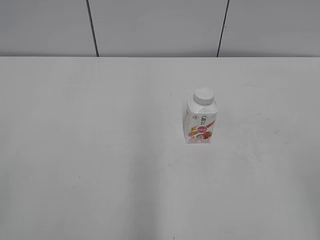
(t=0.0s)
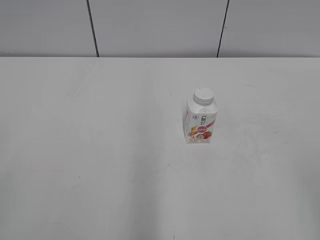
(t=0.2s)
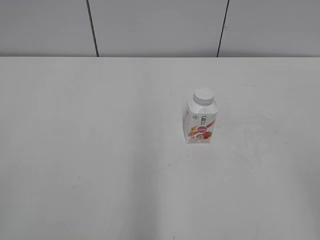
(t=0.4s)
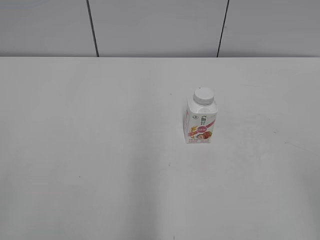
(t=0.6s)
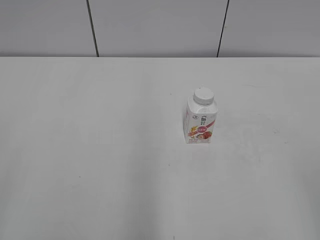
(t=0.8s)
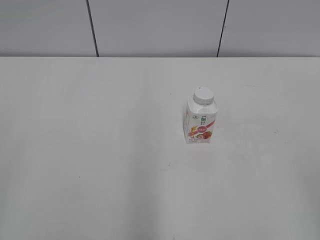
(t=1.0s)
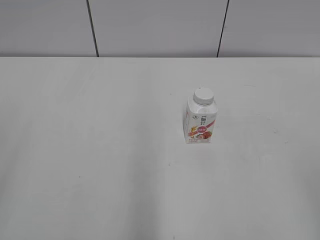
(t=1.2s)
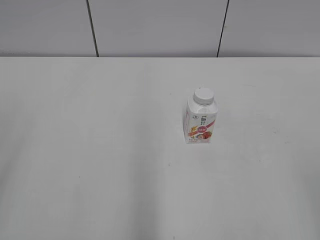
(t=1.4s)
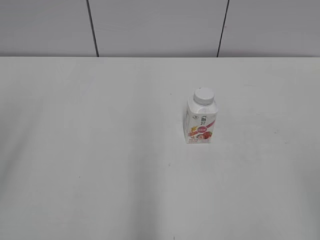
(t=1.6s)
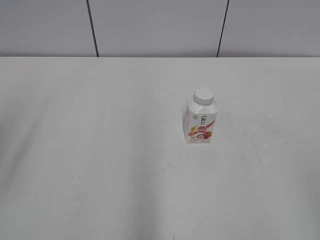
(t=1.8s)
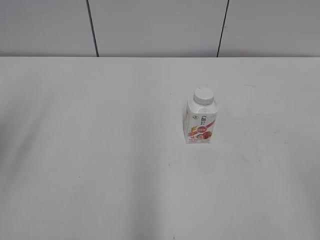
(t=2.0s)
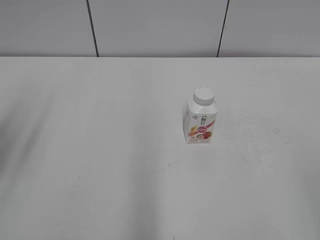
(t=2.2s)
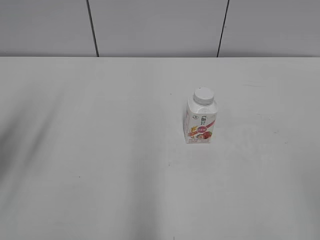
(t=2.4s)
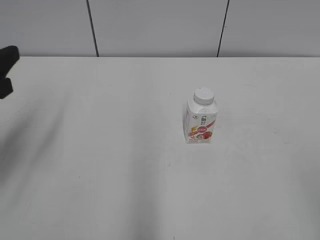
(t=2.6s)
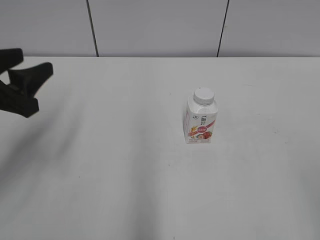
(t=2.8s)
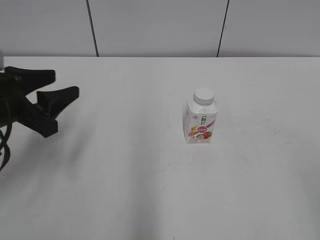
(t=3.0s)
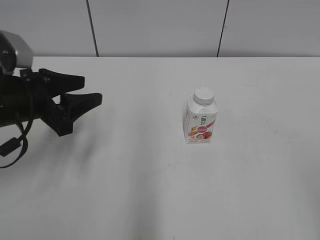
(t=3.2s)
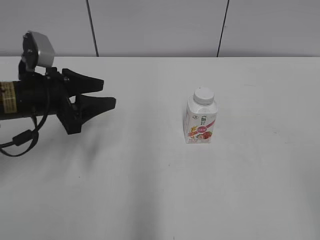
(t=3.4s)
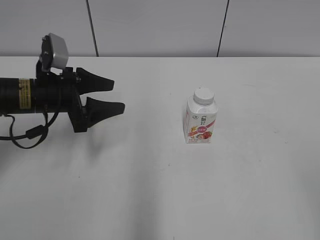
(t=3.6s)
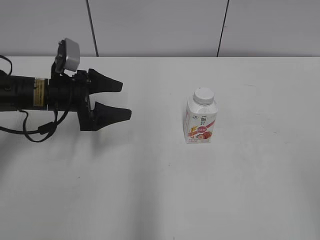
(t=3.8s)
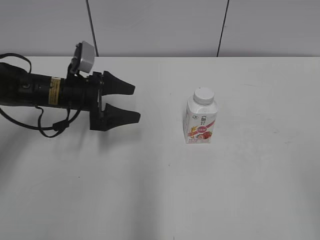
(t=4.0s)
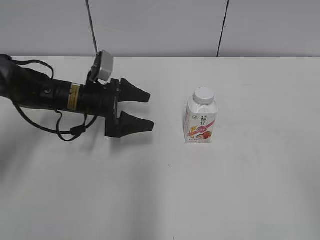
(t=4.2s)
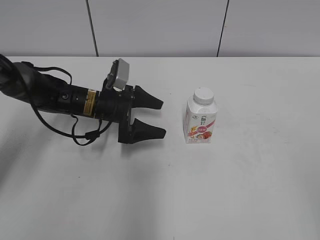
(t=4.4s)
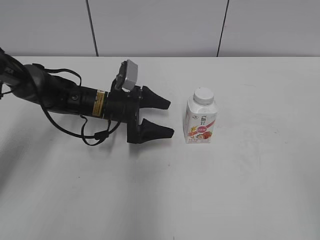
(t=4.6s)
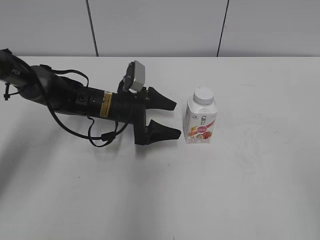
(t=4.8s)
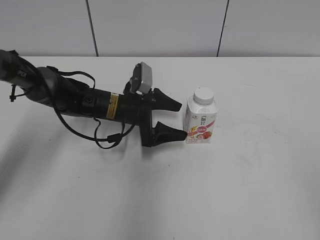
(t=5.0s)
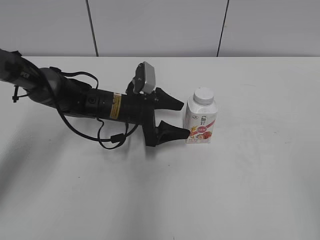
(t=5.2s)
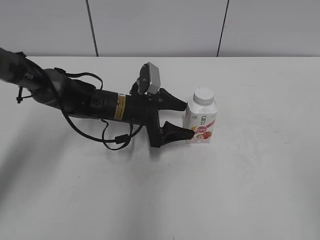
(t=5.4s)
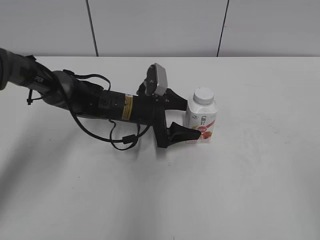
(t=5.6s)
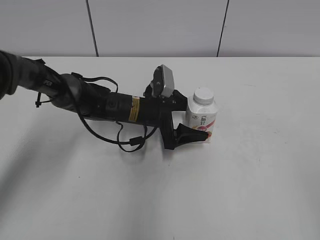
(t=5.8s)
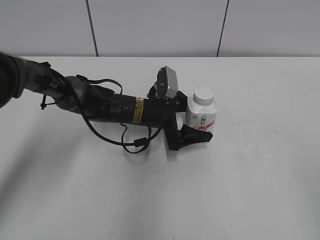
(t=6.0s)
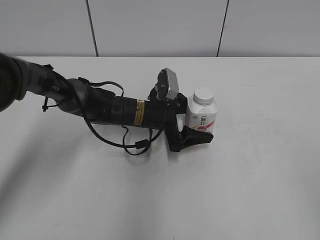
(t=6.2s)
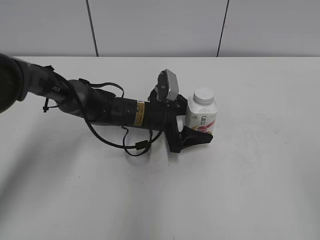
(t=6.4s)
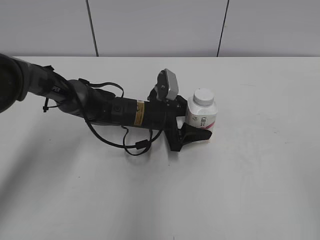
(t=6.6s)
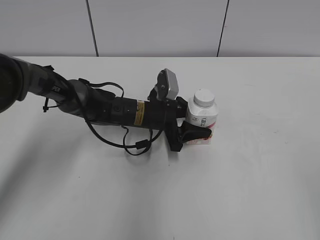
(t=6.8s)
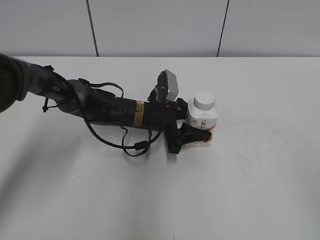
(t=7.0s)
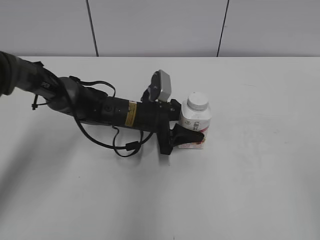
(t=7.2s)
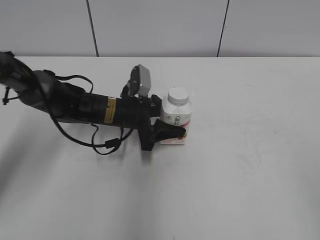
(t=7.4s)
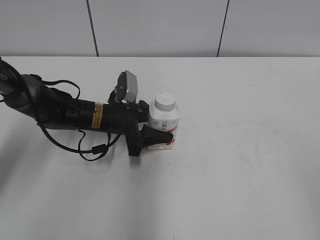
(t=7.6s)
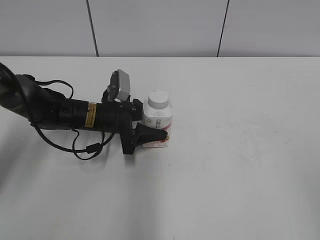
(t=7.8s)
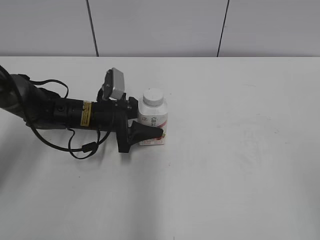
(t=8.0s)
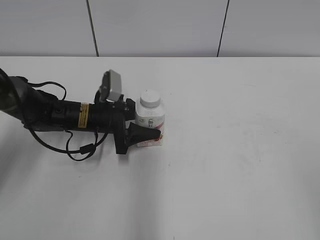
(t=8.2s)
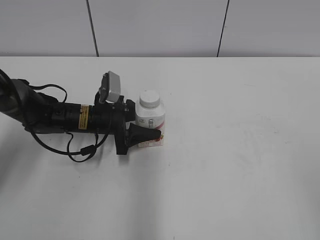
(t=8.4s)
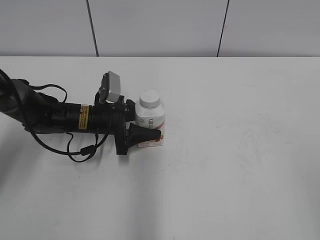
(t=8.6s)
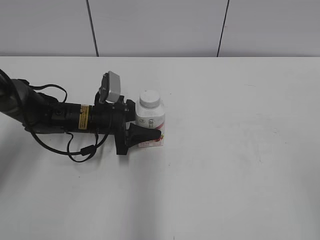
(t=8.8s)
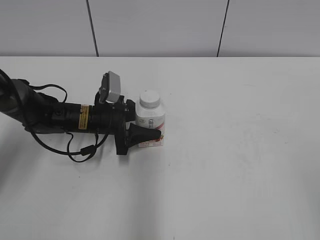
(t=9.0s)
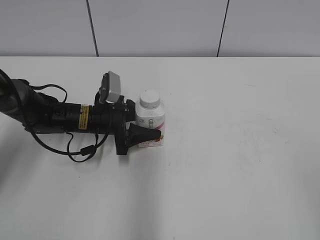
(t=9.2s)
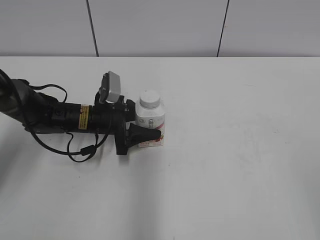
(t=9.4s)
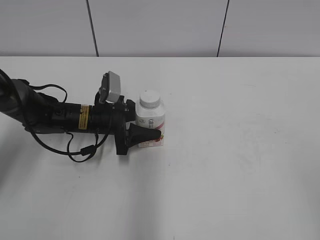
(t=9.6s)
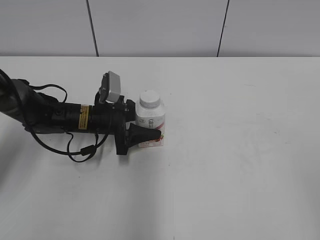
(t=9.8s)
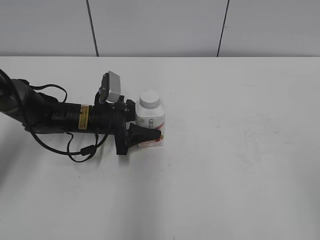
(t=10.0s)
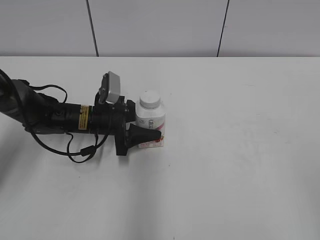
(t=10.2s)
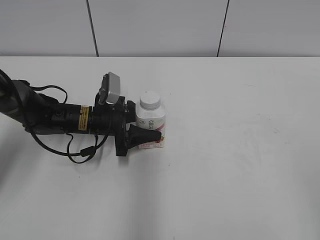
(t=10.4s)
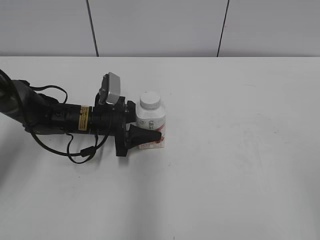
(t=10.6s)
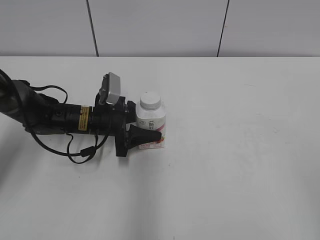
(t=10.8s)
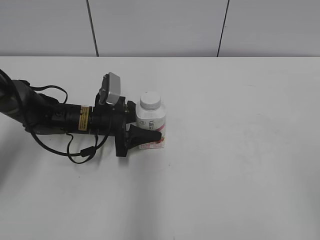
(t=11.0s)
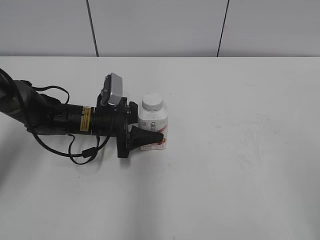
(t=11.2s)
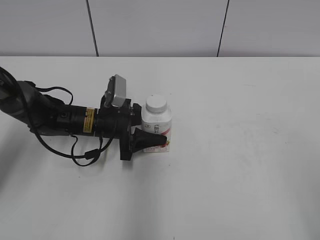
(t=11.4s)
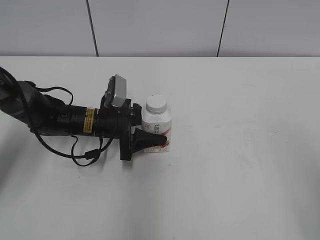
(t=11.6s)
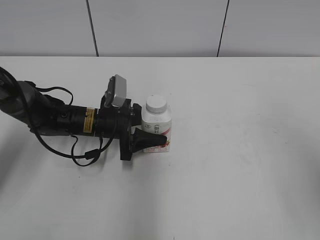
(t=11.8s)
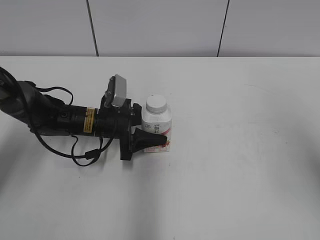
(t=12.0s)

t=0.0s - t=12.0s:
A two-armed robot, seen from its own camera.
Step, t=0.0s - t=6.6s: Grab the Yili Changqing with the left hand.
t=1.6s - t=3.0s: The left gripper is displaced downward, forward and to the right by roughly 20 cm.
t=3.0s - t=4.4s: The left gripper moves forward, downward and to the right, about 20 cm, and opens up.
t=4.4s - t=6.0s: The left gripper goes about 10 cm to the right.
t=6.0s - t=7.6s: The left gripper heads to the left, covering approximately 5 cm, and closes.
t=7.6s - t=9.0s: The grippers move only a little.
t=9.0s - t=10.4s: Both grippers stay about where they are.
t=10.4s - t=12.0s: The right gripper heads forward and upward, covering roughly 20 cm.

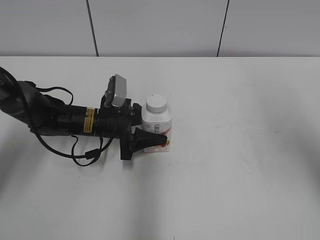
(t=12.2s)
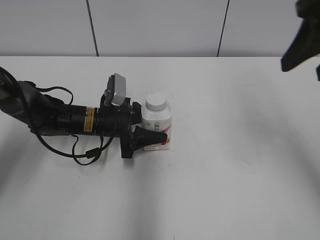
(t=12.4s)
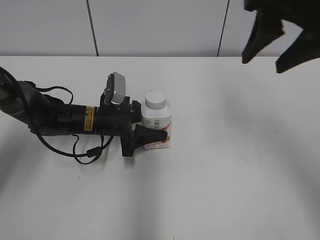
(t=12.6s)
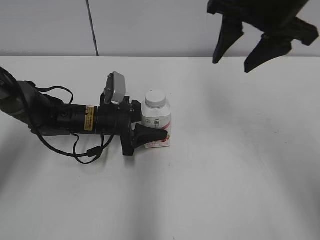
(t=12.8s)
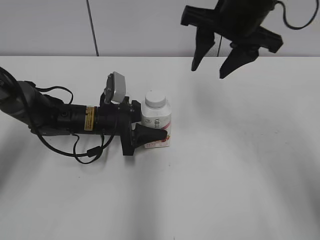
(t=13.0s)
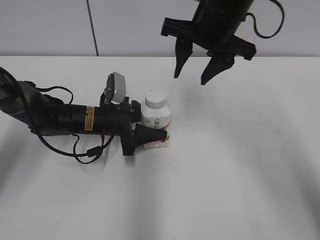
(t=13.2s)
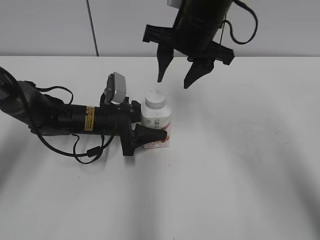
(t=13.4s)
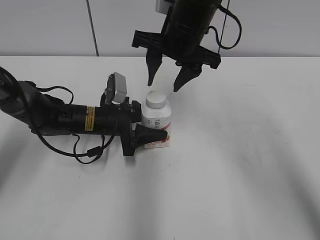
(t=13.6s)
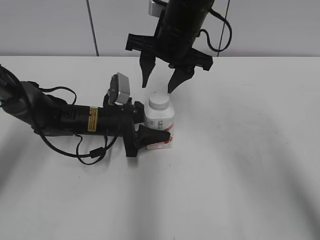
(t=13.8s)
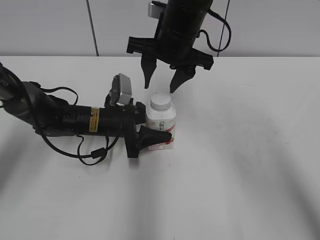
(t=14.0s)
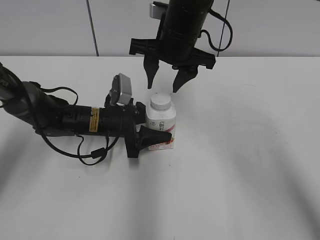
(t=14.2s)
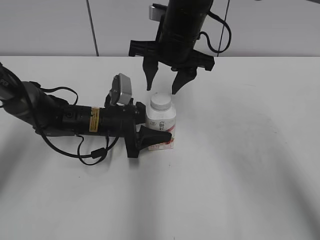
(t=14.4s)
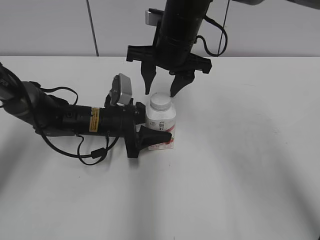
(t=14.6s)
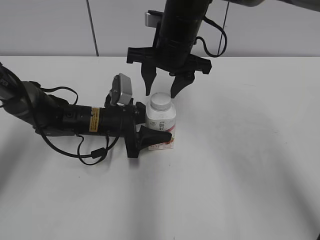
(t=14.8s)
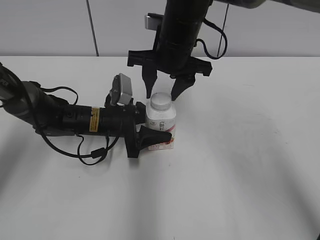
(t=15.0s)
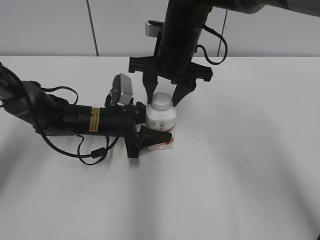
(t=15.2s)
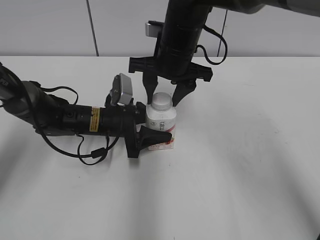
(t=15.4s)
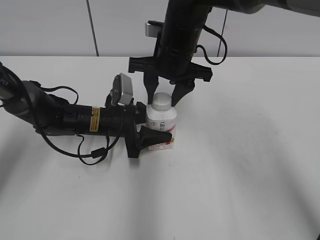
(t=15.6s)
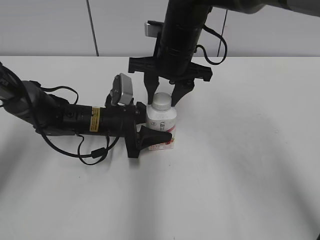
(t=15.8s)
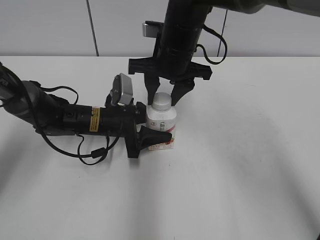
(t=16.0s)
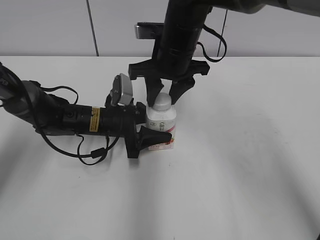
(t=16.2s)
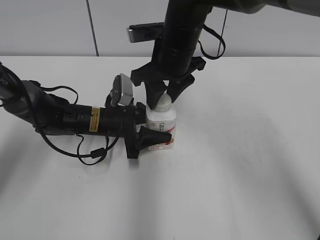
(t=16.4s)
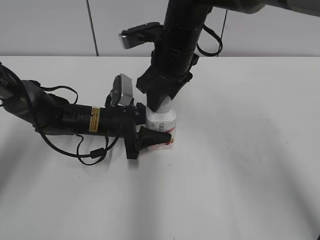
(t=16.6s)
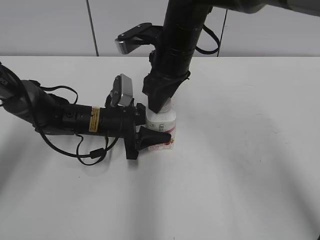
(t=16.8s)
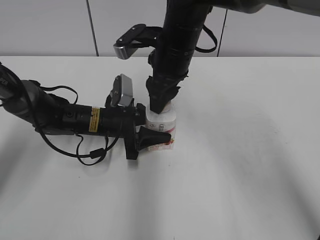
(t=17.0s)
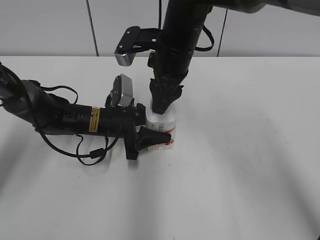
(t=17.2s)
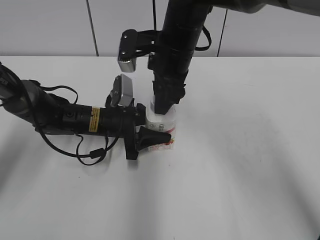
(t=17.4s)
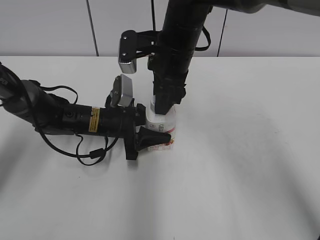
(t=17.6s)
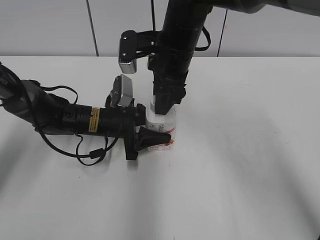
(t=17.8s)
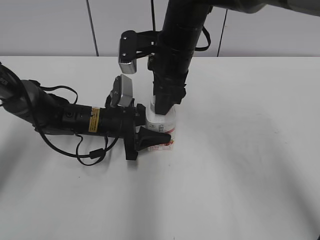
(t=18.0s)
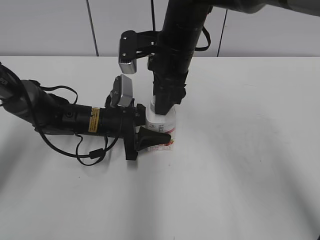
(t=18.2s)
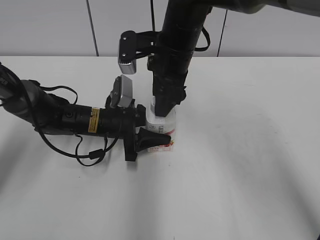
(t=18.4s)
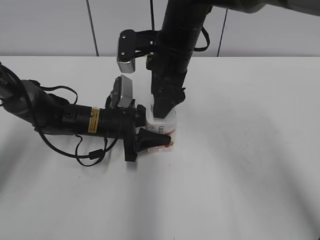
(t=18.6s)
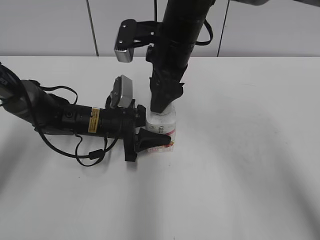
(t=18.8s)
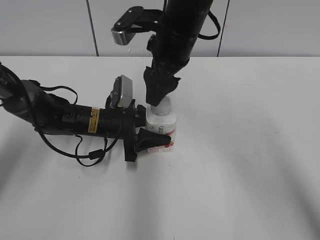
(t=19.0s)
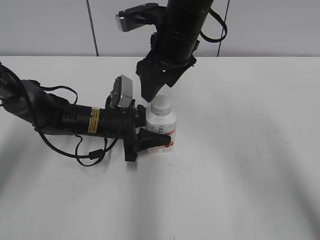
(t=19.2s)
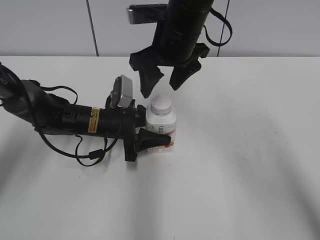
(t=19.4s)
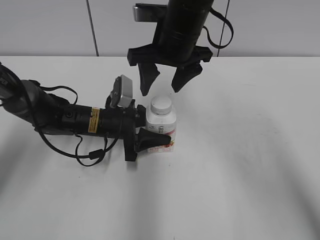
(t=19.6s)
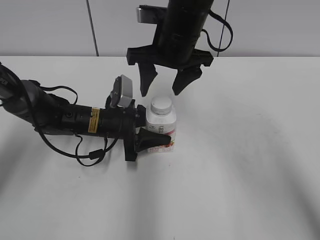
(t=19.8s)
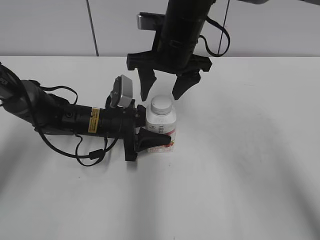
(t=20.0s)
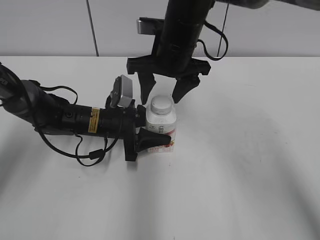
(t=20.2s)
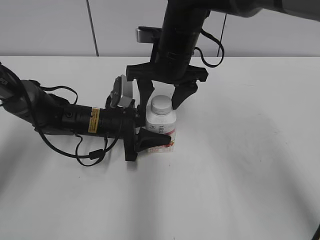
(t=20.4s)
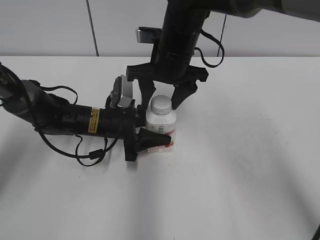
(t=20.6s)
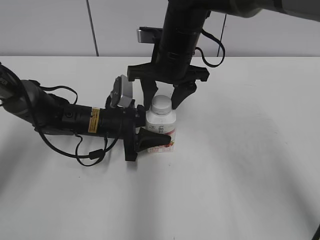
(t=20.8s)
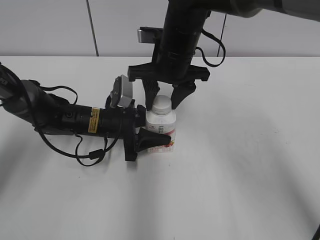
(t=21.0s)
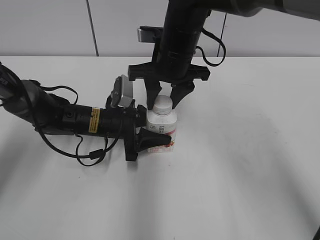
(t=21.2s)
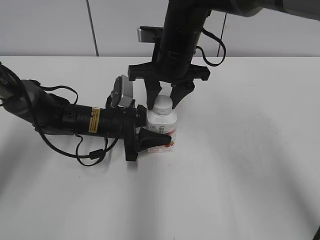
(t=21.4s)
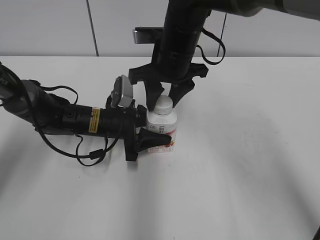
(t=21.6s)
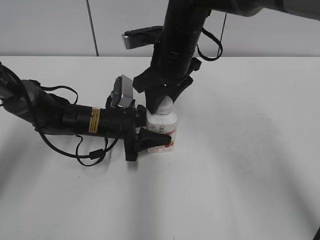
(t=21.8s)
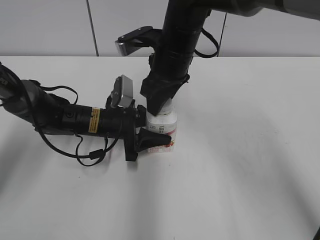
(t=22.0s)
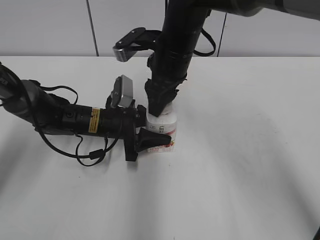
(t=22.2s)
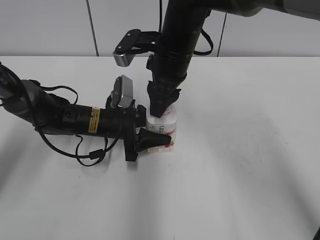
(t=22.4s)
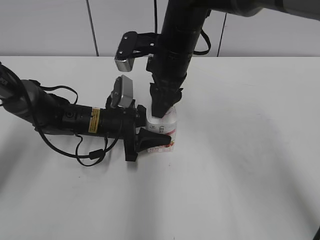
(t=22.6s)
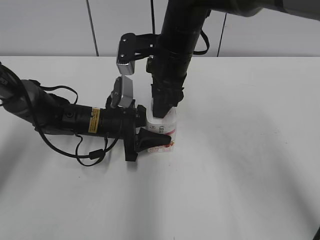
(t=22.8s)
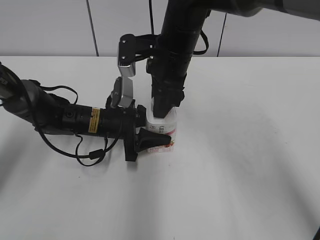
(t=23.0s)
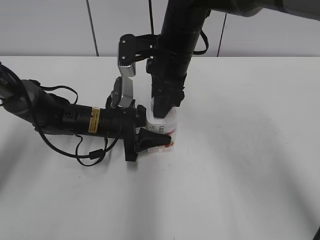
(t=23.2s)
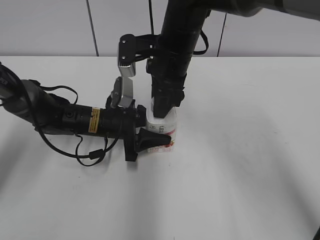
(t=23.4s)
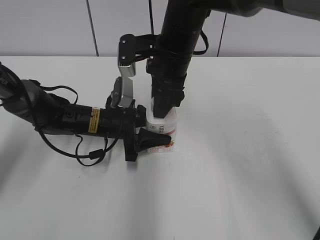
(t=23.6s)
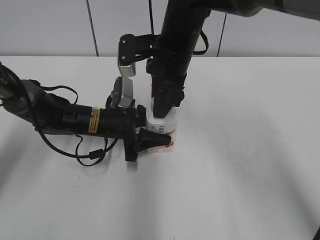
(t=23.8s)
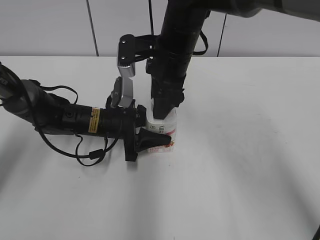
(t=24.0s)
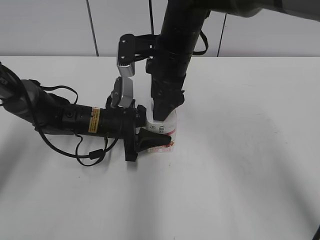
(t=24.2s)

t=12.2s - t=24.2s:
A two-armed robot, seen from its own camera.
t=12.2s - t=13.8s: The right gripper travels to the left, forward and downward by approximately 30 cm.
t=13.8s - t=15.2s: The grippers stay close to where they were, moving slightly.
t=18.2s - t=19.8s: The right gripper opens.
t=19.8s - t=21.2s: The right gripper closes up.
t=22.6s - t=24.2s: The right gripper opens up.
